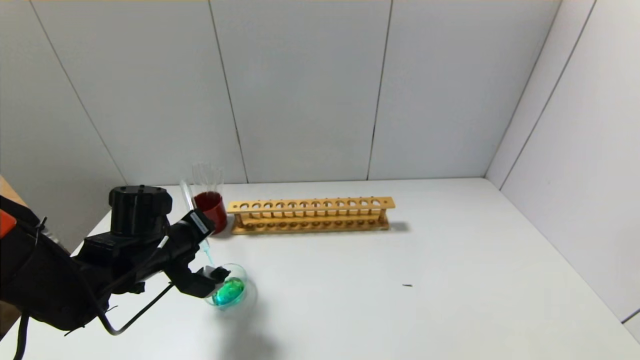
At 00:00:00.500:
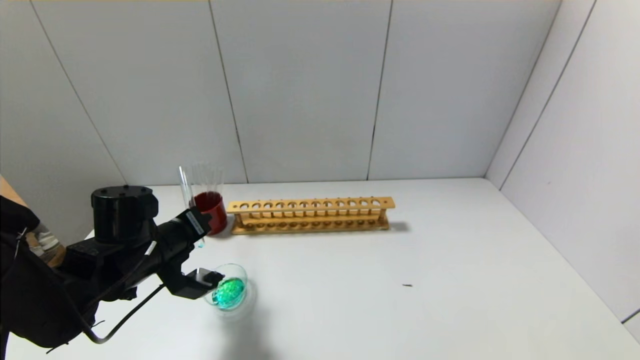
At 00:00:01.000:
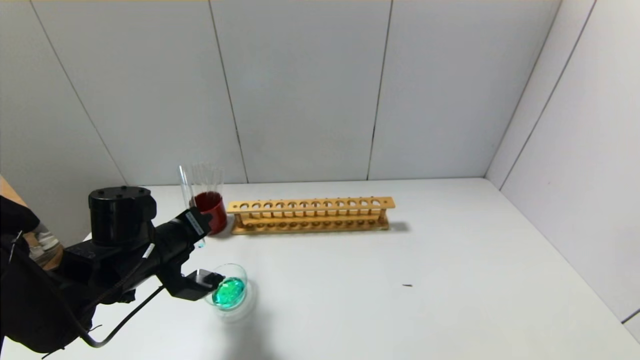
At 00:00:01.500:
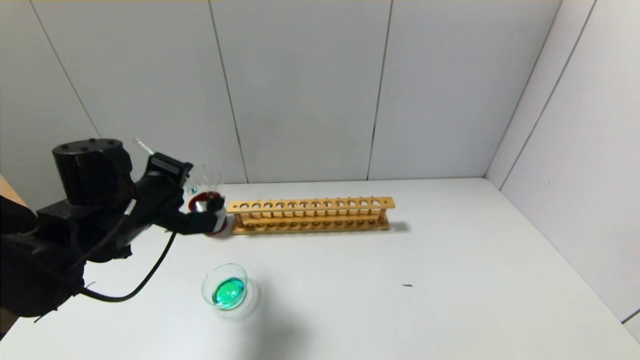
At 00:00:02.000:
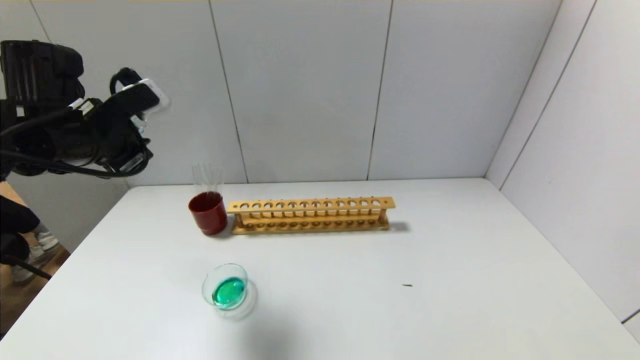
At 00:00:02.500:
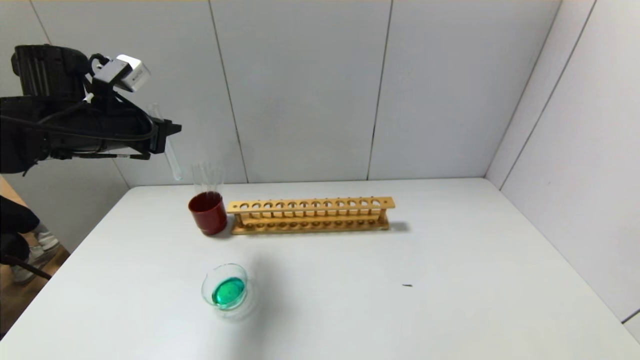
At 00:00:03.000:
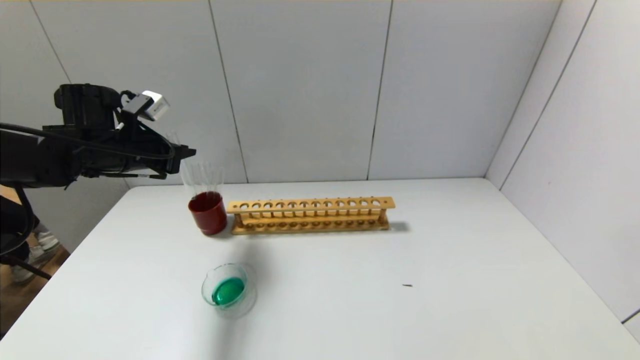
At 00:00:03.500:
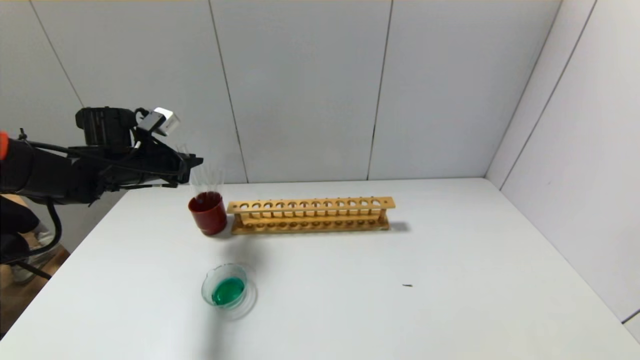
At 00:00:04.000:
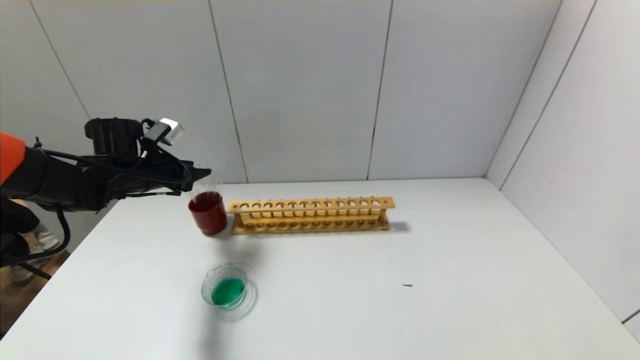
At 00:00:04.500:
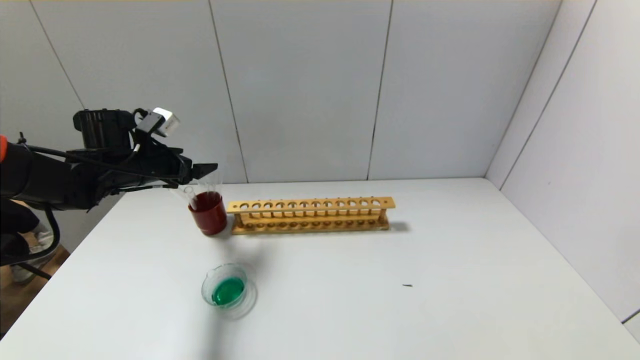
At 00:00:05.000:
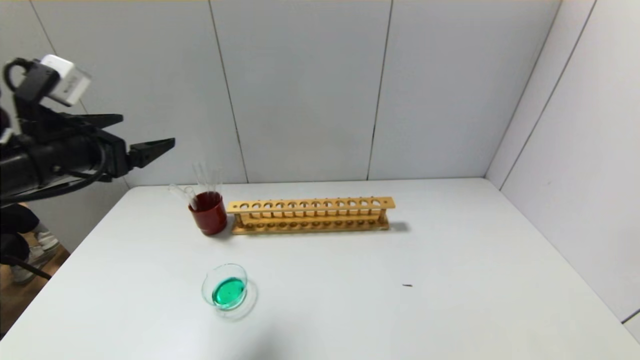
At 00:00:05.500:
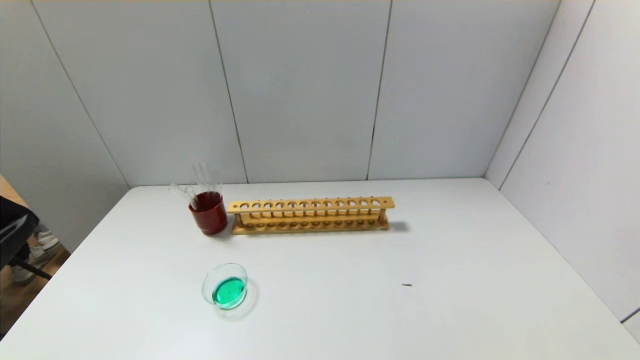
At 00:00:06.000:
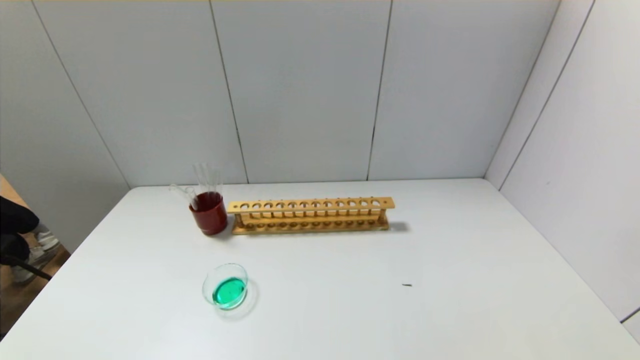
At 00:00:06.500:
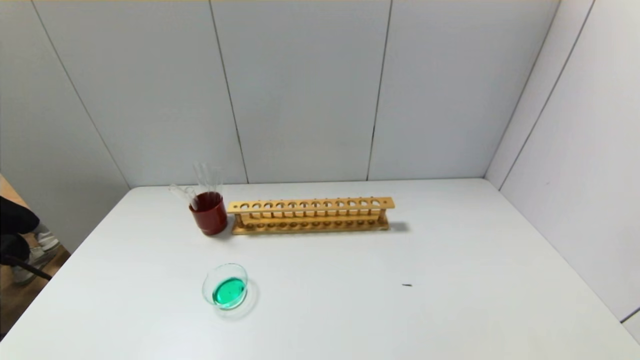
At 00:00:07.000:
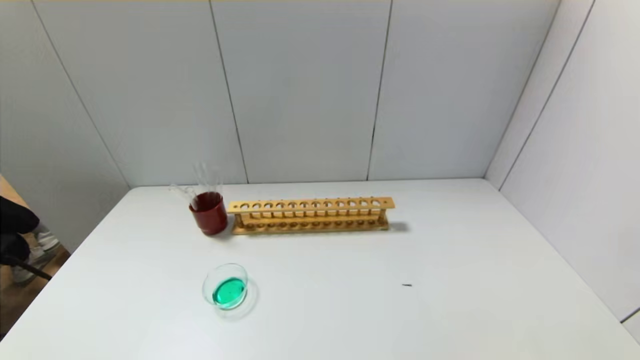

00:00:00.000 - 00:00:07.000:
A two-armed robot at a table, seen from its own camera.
Step, 00:00:01.500 - 00:00:03.500: Place the test tube into the brown cup with the left gripper.
00:00:00.000 - 00:00:02.000: The left gripper travels upward by roughly 15 cm.
00:00:02.000 - 00:00:03.500: The left gripper shifts about 15 cm forward and downward.
00:00:03.500 - 00:00:05.000: The left gripper shifts some 20 cm backward and upward, and opens.
00:00:05.000 - 00:00:07.000: The left gripper travels backward and downward by some 35 cm.

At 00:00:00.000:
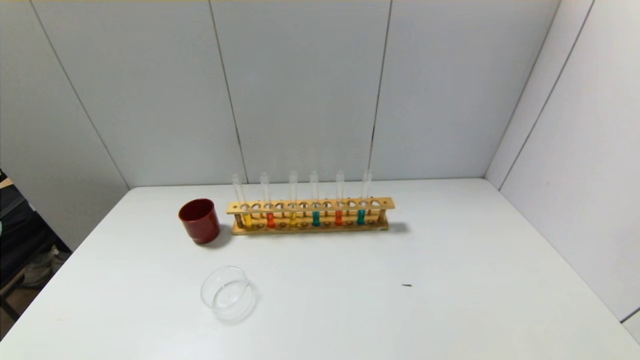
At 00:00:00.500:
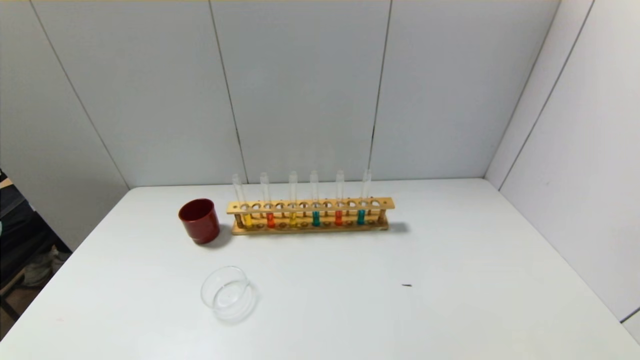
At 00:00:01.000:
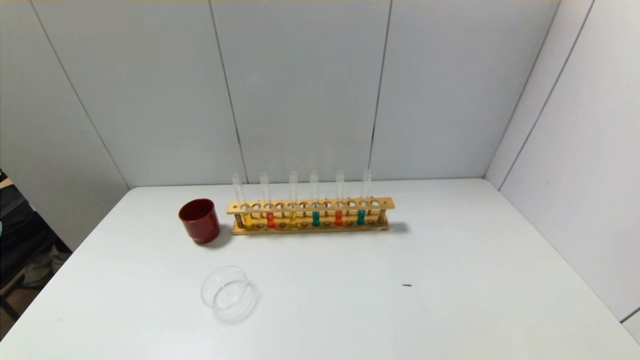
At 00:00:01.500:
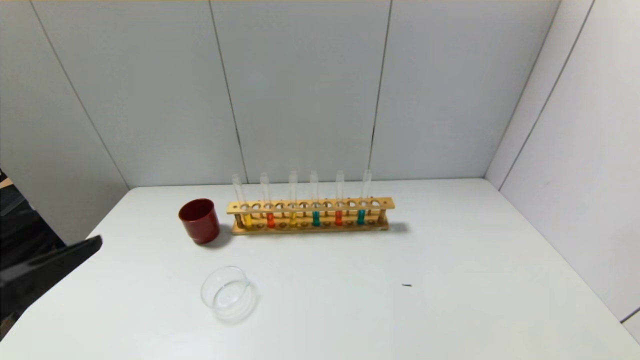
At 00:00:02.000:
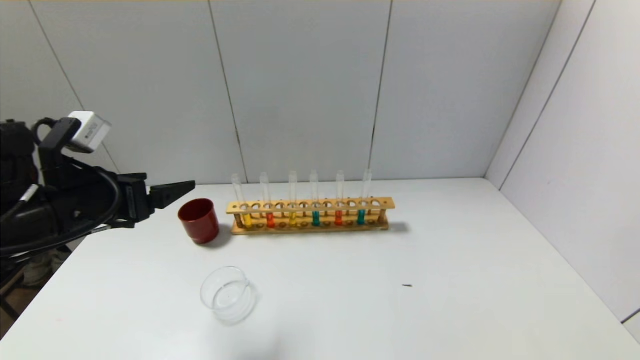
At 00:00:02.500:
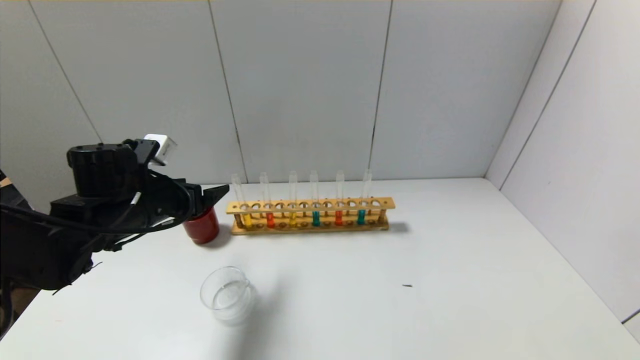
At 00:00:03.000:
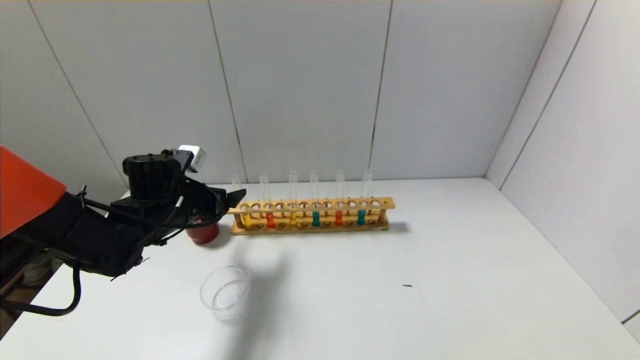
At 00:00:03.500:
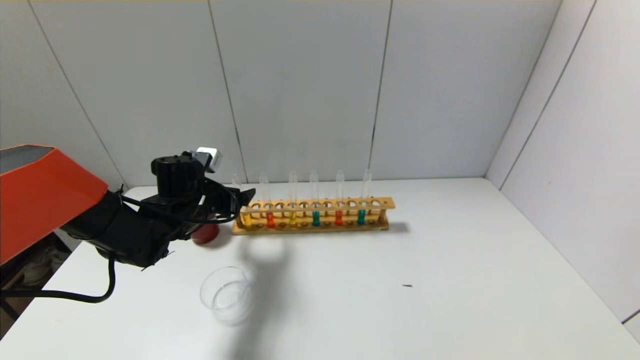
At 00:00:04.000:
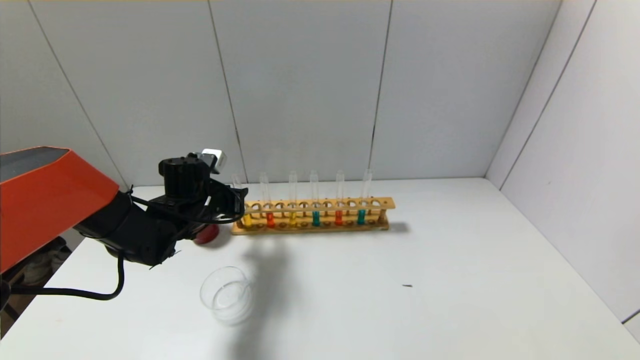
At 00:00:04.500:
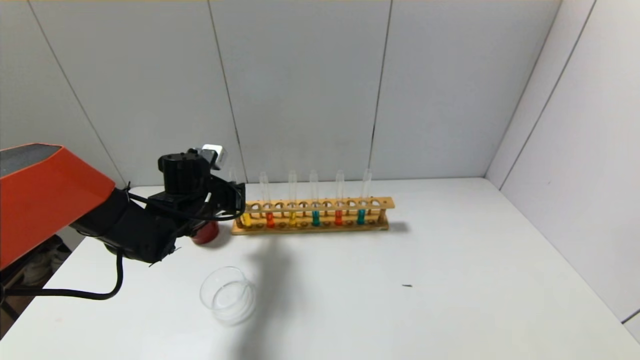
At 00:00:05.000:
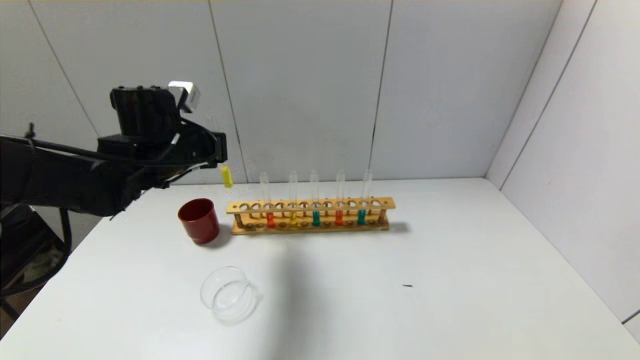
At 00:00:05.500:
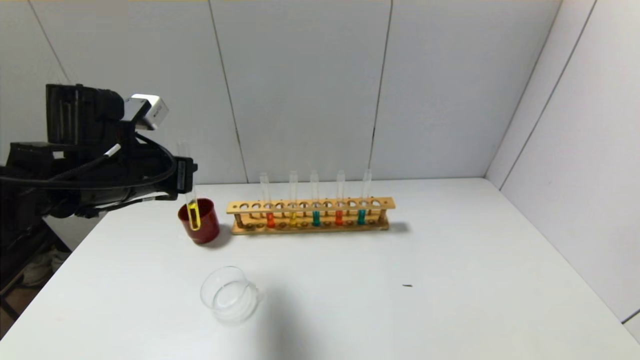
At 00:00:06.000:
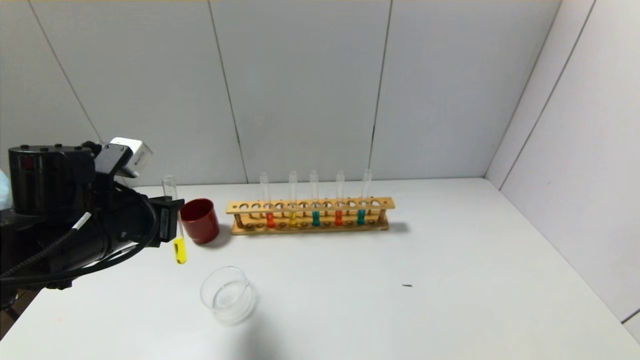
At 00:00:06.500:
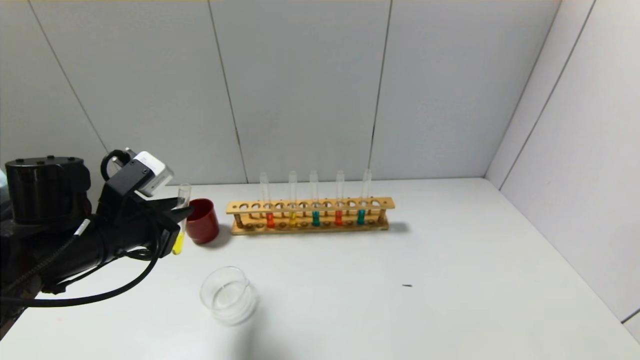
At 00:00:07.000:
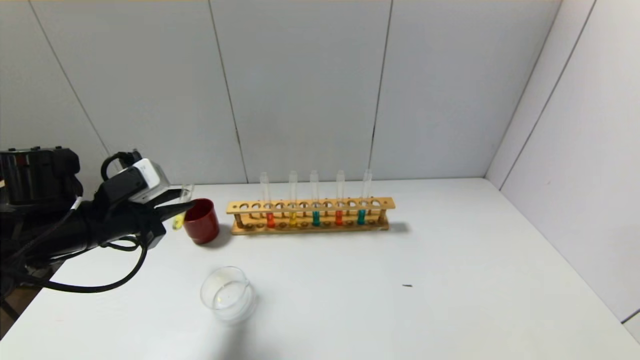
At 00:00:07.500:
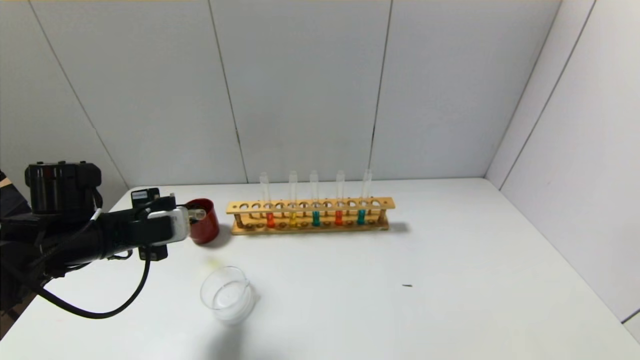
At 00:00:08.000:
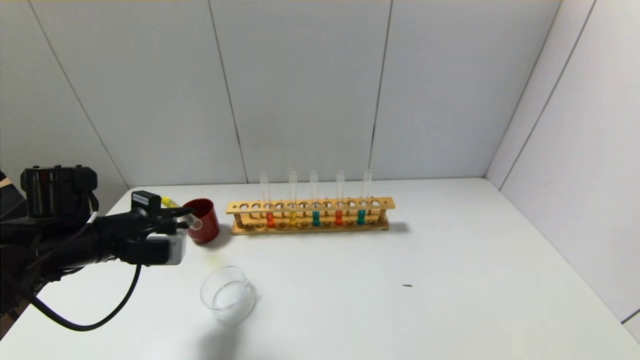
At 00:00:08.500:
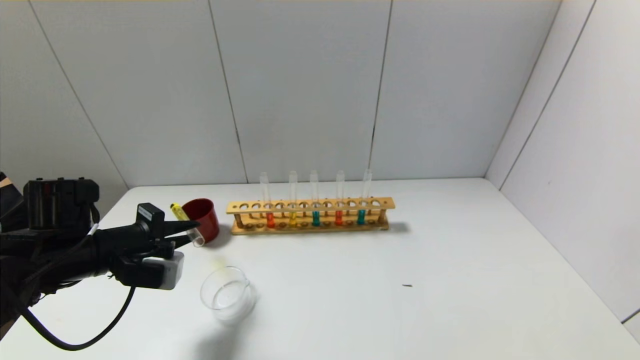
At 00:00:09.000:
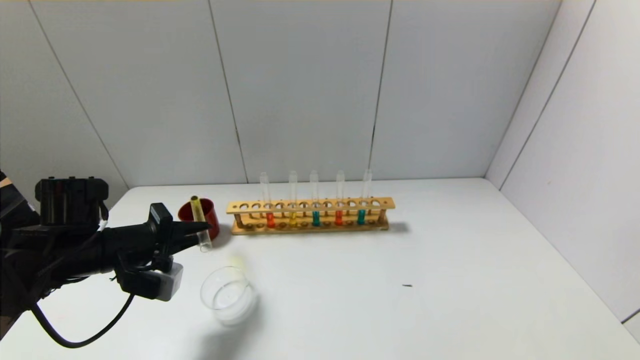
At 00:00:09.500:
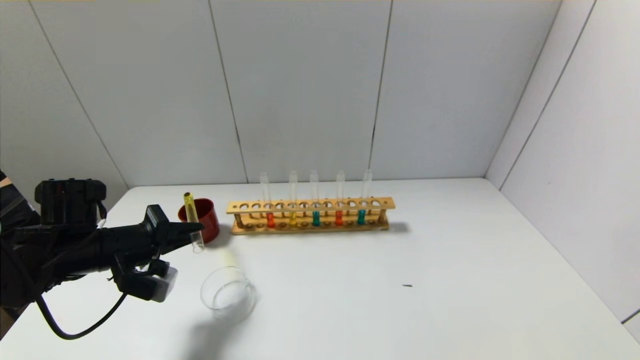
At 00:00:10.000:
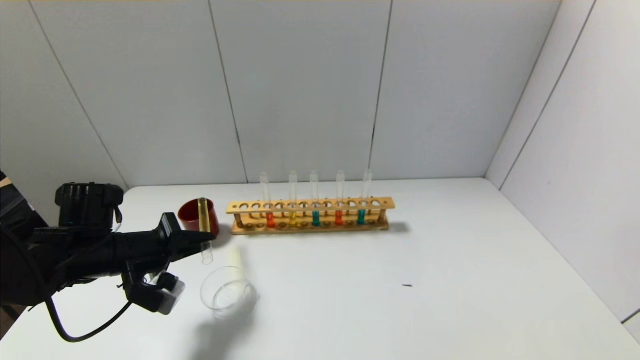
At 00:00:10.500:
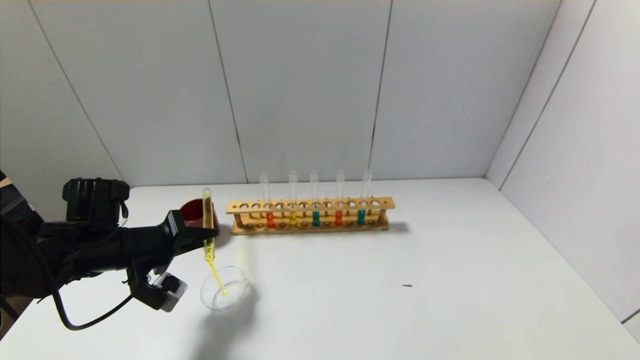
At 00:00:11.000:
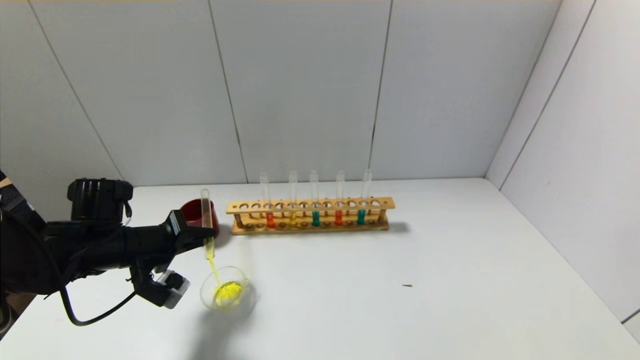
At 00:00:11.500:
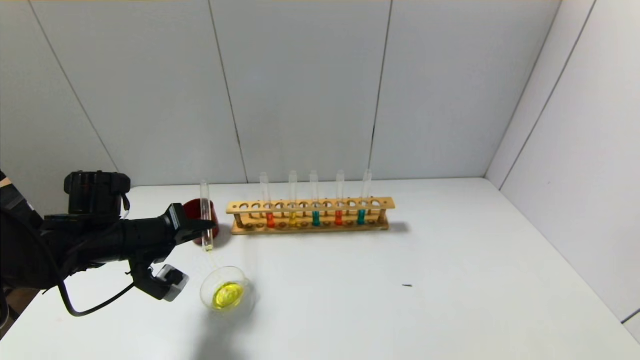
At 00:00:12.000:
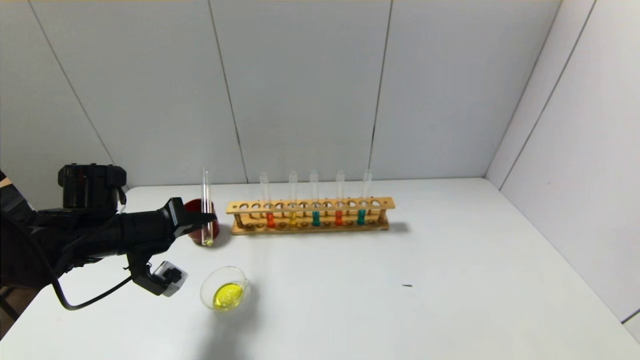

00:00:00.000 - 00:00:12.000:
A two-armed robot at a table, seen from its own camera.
Step, 00:00:00.000 - 00:00:04.000: Grasp the yellow reagent with the left gripper.
00:00:00.000 - 00:00:02.000: The left gripper heads forward and upward, covering some 30 cm.
00:00:02.000 - 00:00:04.000: The left gripper is displaced forward, downward and to the right by some 20 cm, and closes.
00:00:04.000 - 00:00:06.000: The left gripper is displaced backward and upward by some 15 cm.
00:00:06.000 - 00:00:08.000: The left gripper ends up some 5 cm from where it was.

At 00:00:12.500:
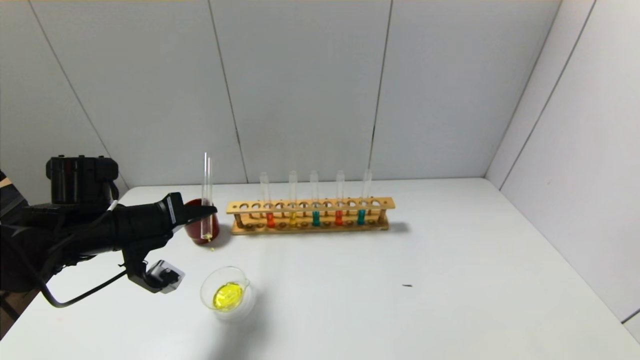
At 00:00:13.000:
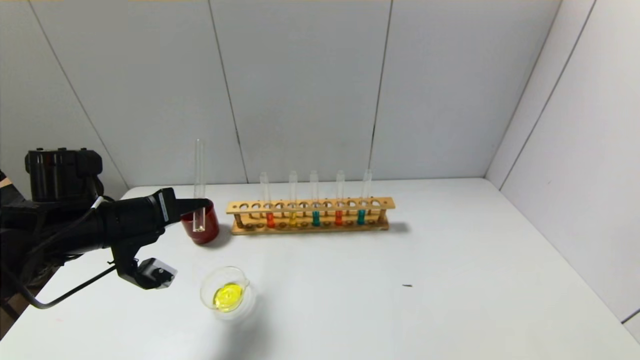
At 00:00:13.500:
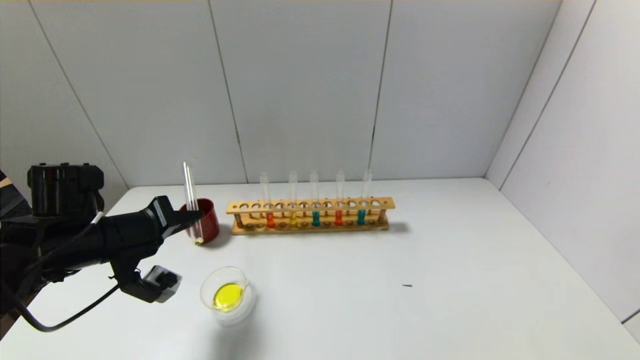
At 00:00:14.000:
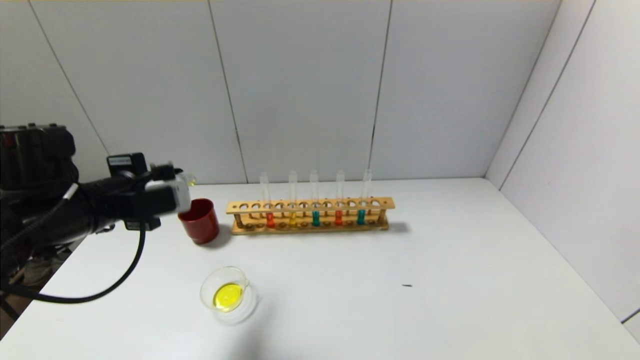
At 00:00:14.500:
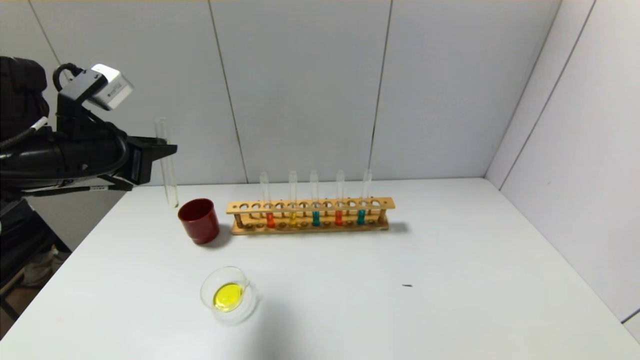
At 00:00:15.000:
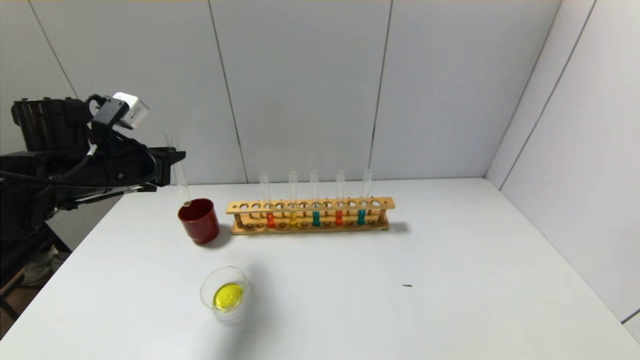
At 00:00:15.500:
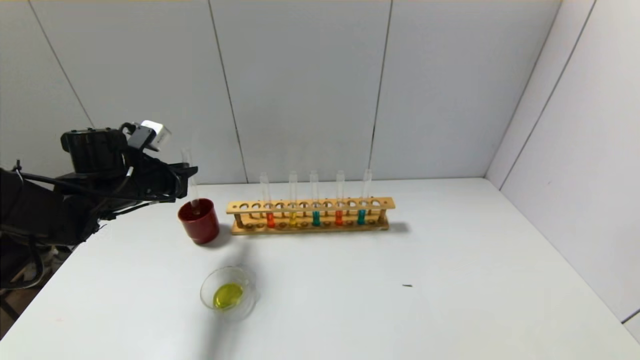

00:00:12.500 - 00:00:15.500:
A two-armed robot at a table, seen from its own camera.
00:00:12.500 - 00:00:14.000: The left gripper shifts about 5 cm upward.
00:00:14.000 - 00:00:15.500: The left gripper goes roughly 10 cm forward and downward.
